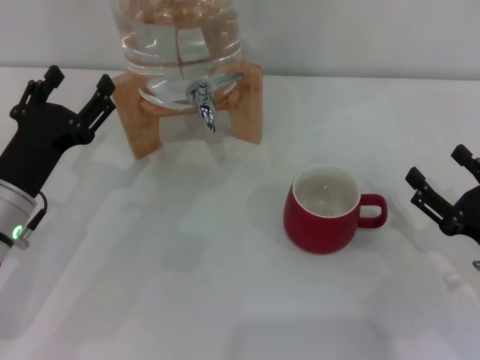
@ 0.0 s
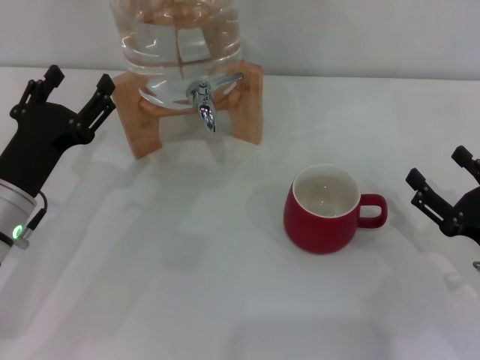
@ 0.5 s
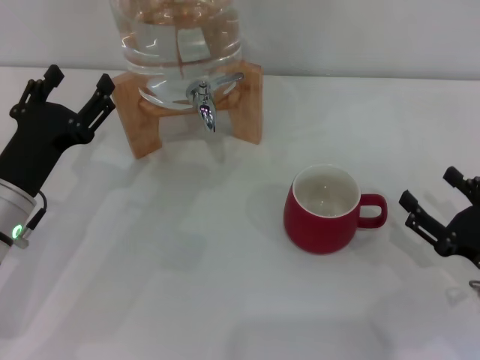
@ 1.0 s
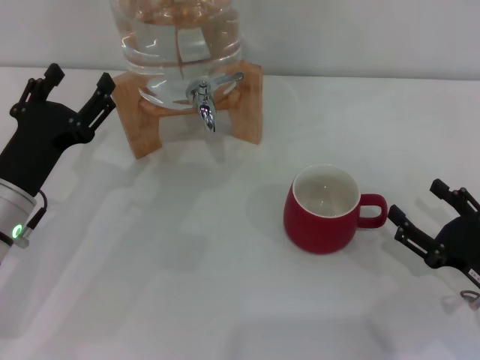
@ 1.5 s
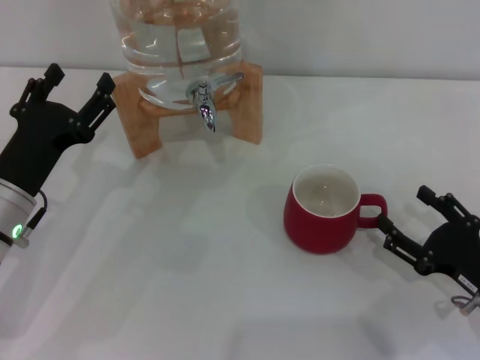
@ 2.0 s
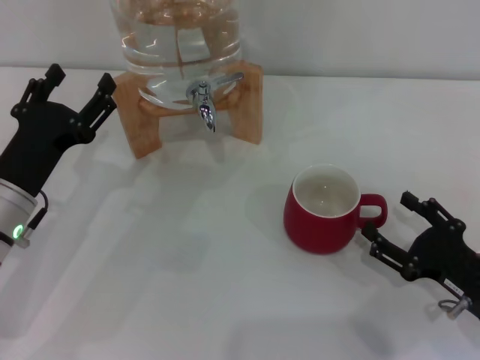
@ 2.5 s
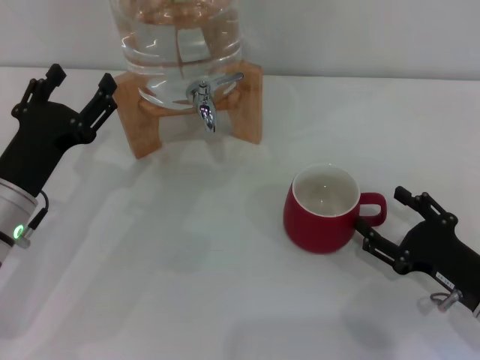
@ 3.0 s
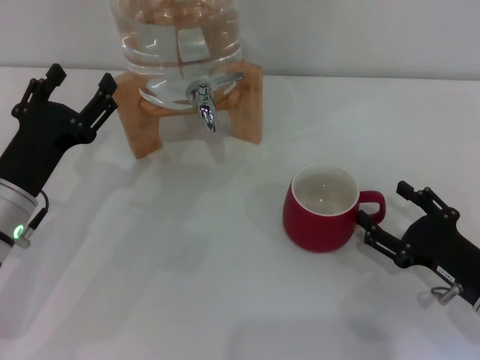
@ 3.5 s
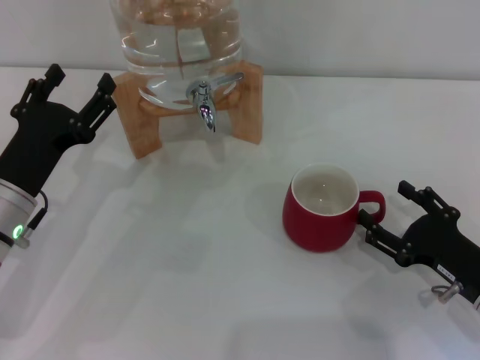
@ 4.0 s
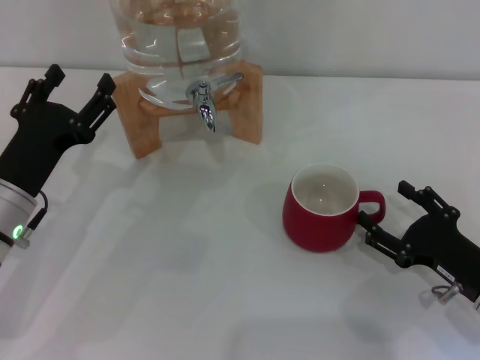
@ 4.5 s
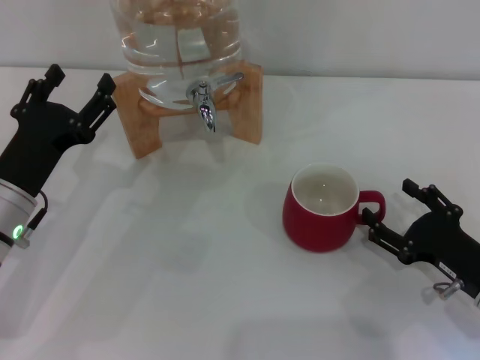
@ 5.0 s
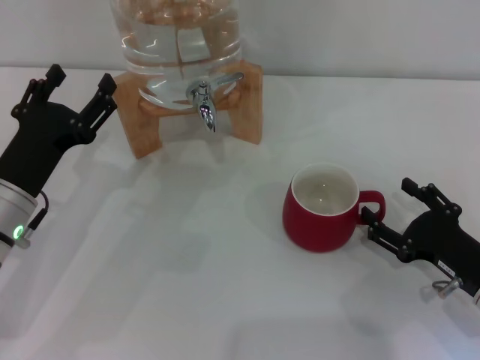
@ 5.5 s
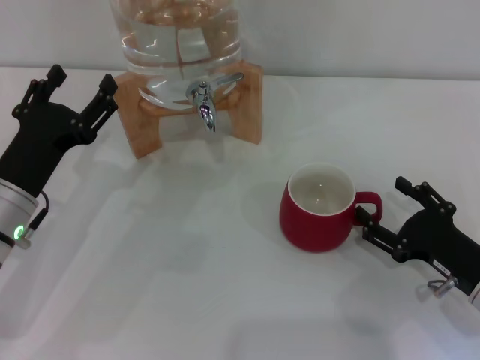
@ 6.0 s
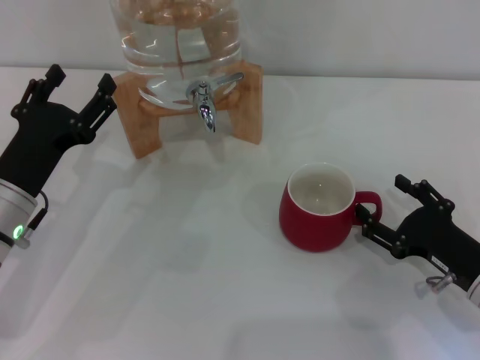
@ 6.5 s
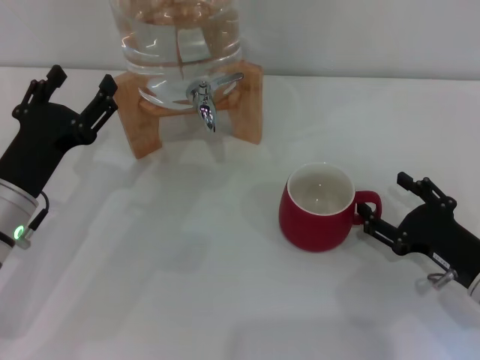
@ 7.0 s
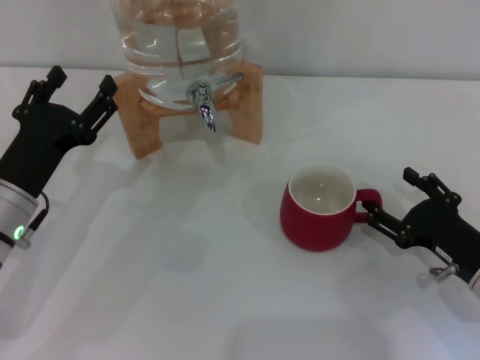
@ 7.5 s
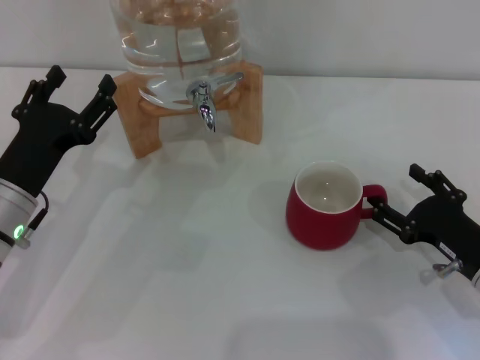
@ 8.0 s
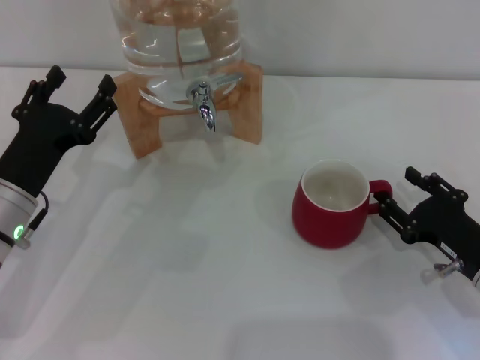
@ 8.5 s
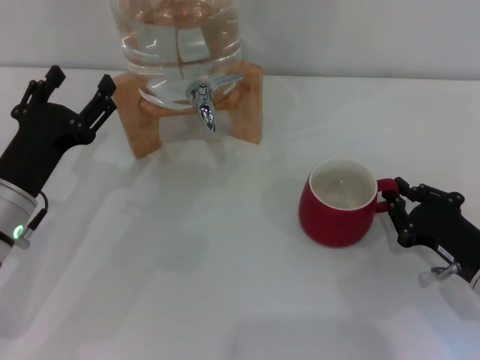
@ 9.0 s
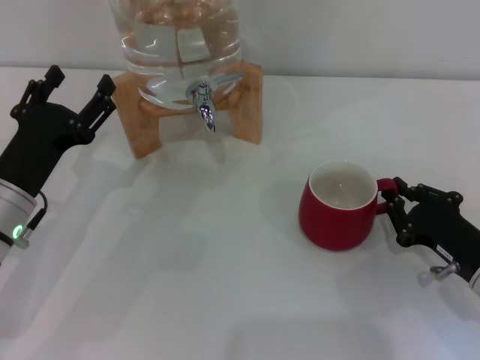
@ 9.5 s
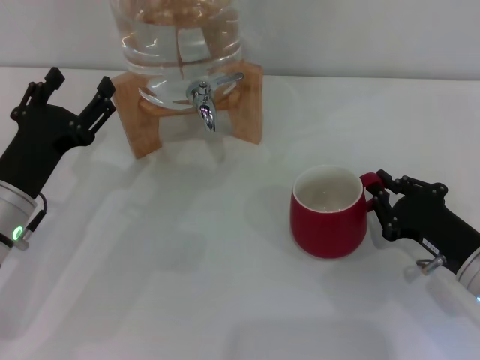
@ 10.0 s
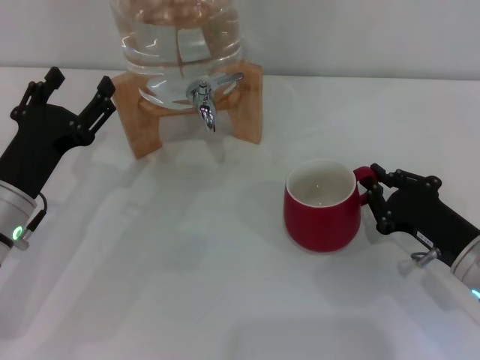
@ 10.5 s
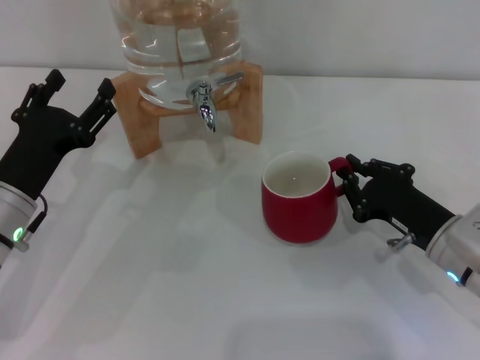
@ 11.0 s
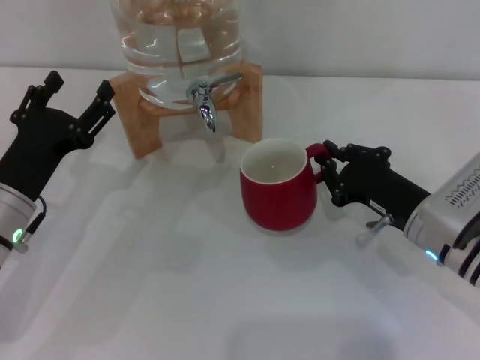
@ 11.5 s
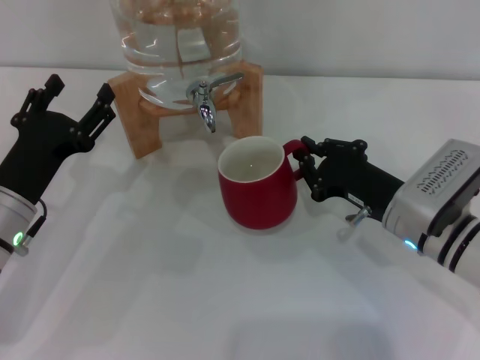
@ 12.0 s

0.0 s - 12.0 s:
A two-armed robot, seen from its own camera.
Task of the whole recording: the right gripper pick up the red cup and place it horizontally under the faucet, the left gripper turn on the faucet to fill the cup, and then turn off the faucet.
0.0 s - 4.0 s: The grippers stay close to where they were, moving slightly.
4.0 s - 6.0 s: Both grippers stay put.
6.0 s - 8.0 s: There are only small adjustments of the grippers.
8.0 s - 10.0 s: The right gripper closes up.
10.0 s - 12.0 s: The right gripper shifts approximately 10 cm to the left and forward.

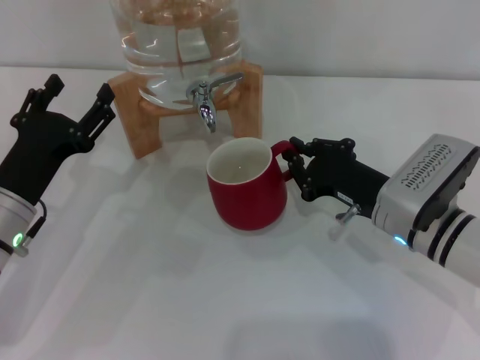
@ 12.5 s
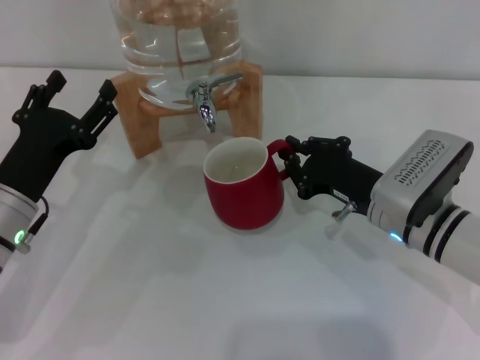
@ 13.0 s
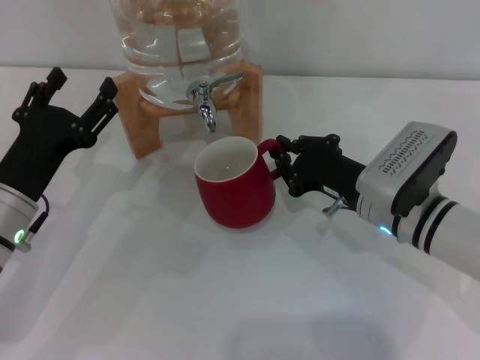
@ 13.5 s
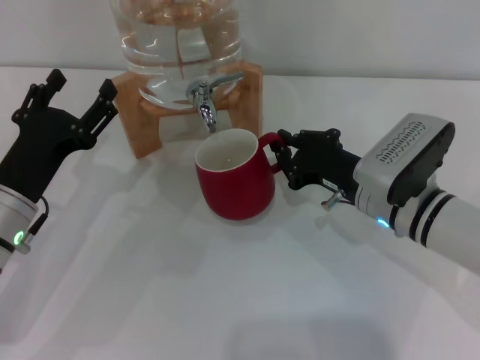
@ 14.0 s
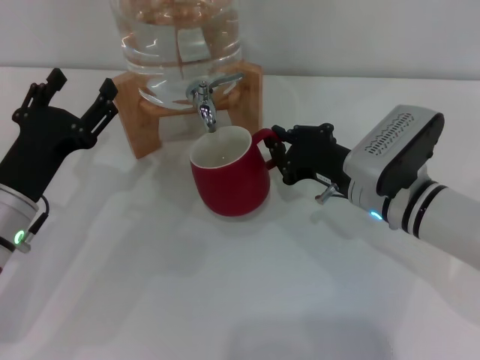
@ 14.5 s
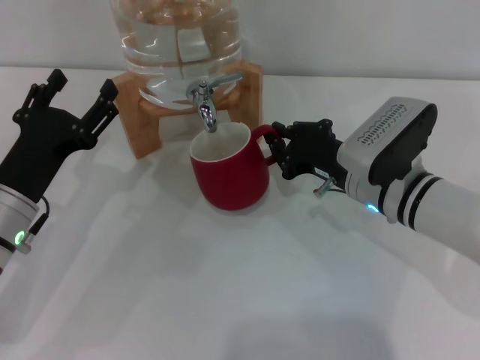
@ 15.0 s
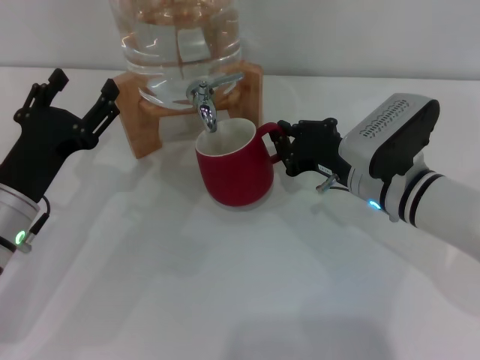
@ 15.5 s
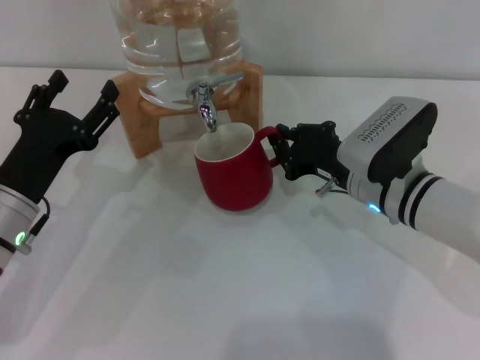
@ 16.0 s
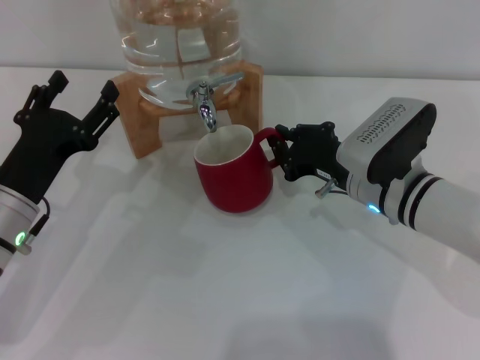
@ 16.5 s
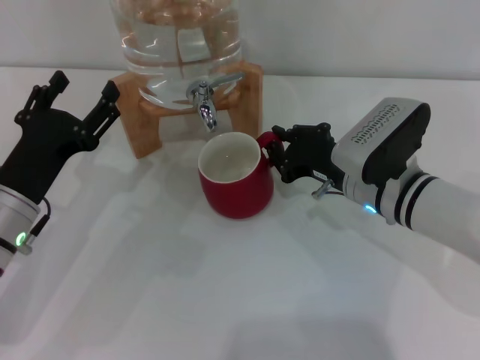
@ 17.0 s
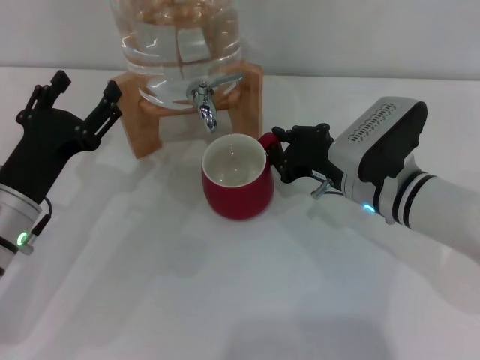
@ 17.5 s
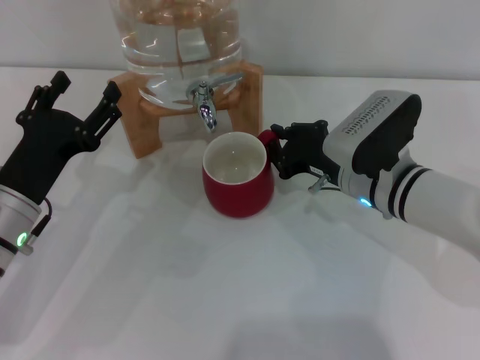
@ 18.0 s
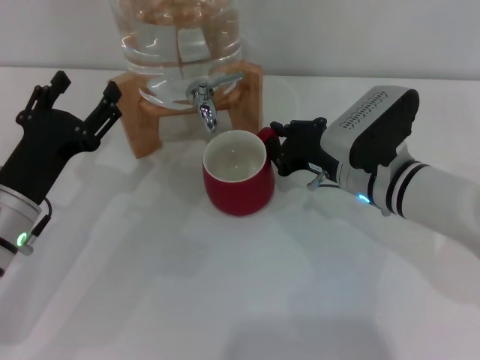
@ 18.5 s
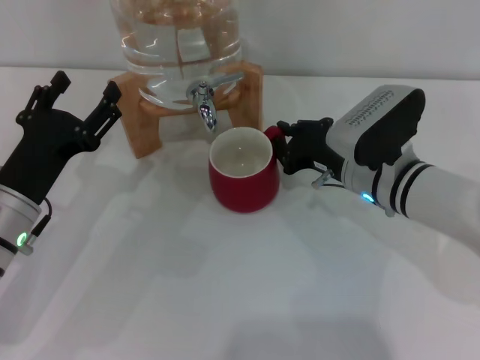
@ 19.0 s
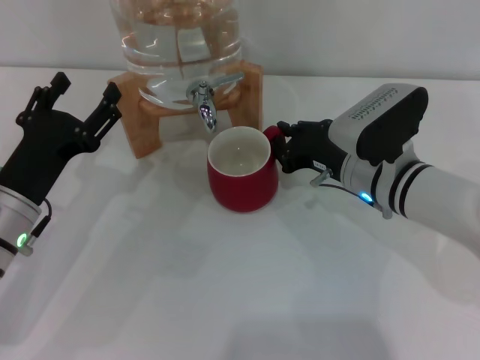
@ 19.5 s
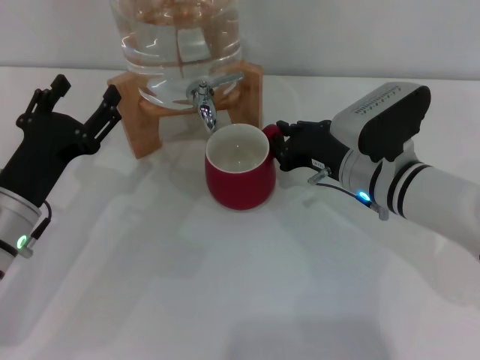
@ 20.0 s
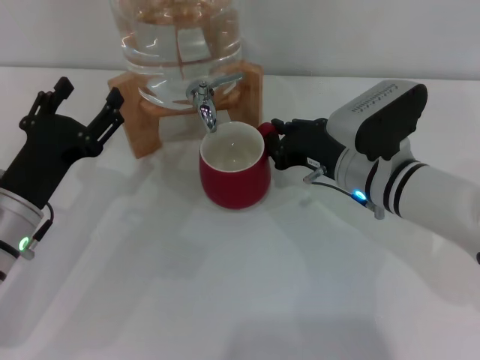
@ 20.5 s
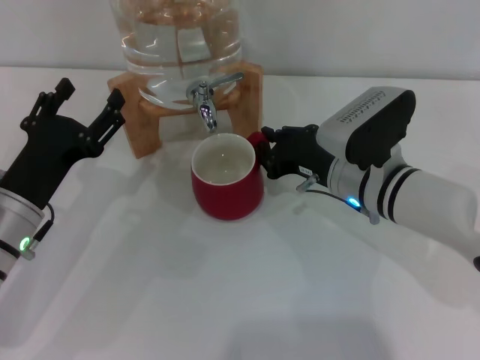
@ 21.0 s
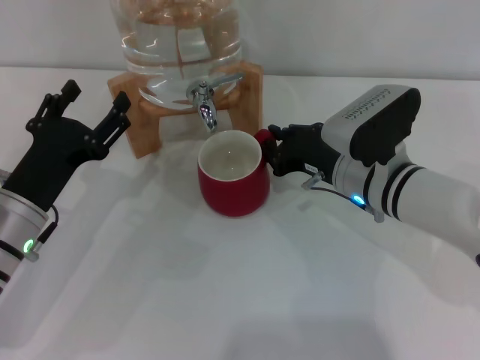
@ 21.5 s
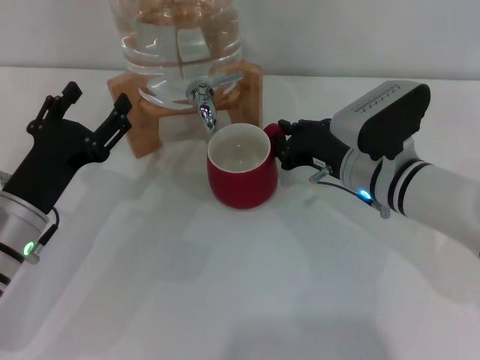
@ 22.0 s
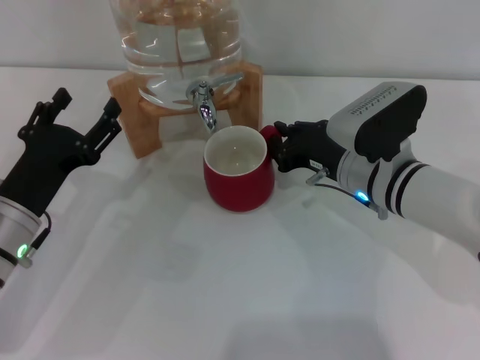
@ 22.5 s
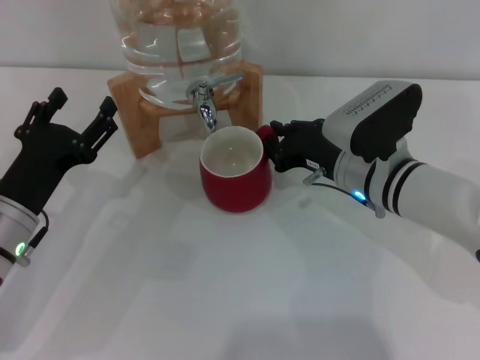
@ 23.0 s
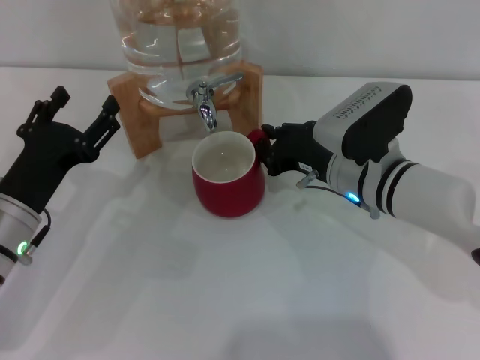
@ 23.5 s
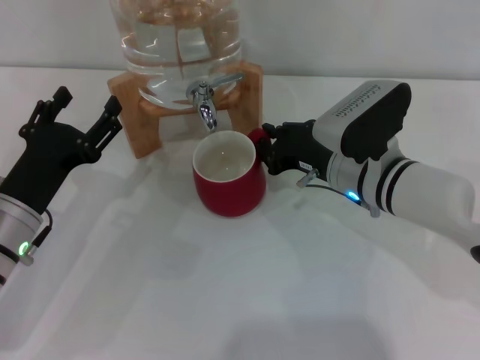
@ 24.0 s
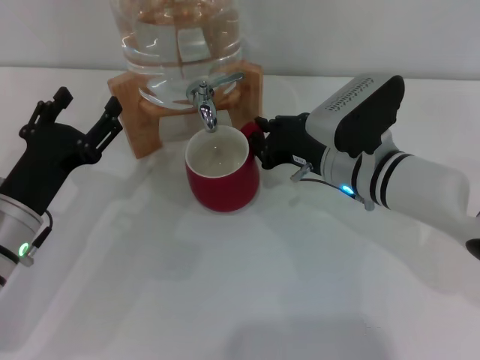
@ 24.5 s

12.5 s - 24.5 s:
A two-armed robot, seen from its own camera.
Task of the whole recording: the right gripper pick up the red cup and place it horizontally under the faucet, the left gripper turn on the faucet to fill the cup, and then turn off the faucet.
12.5 s - 14.5 s: The grippers make only small movements.
14.5 s - 16.5 s: Both grippers stay put.
16.5 s - 20.5 s: The grippers make only small movements.
20.5 s - 22.5 s: The two grippers keep their place.
22.5 s - 24.5 s: The grippers move only a little.

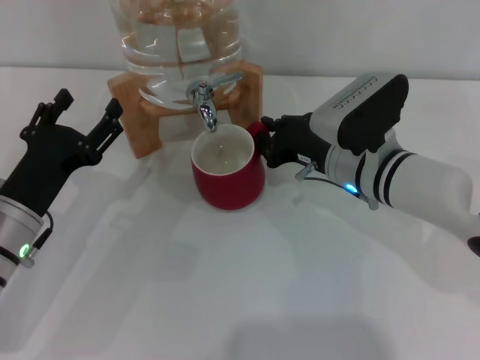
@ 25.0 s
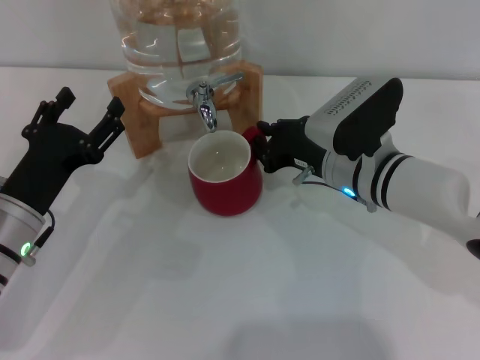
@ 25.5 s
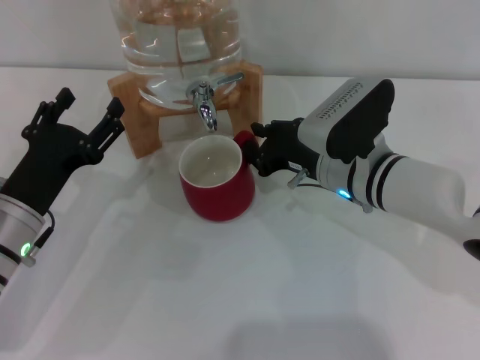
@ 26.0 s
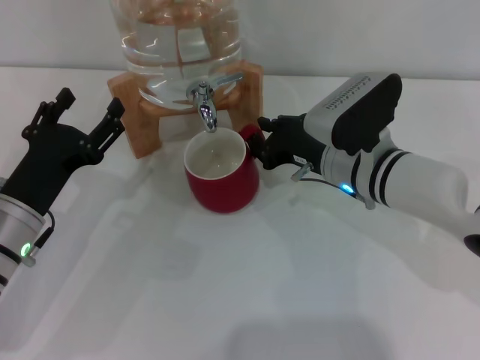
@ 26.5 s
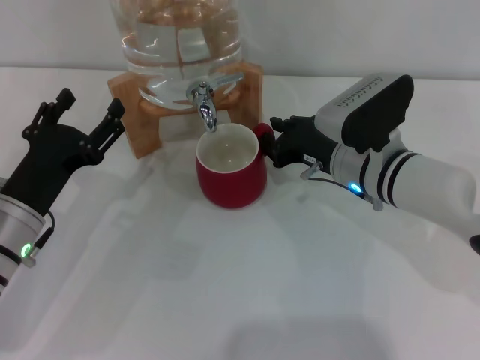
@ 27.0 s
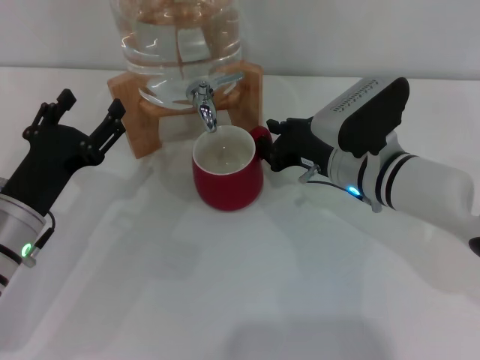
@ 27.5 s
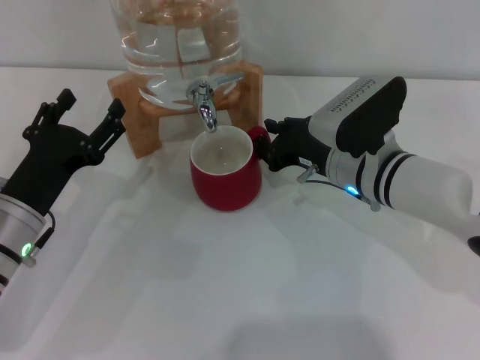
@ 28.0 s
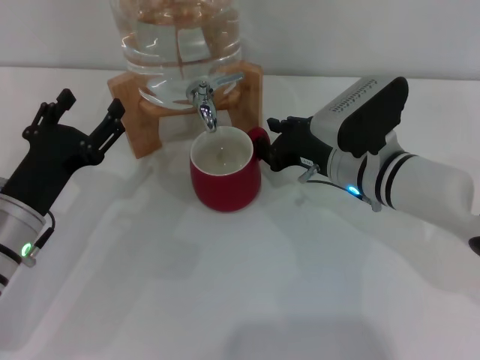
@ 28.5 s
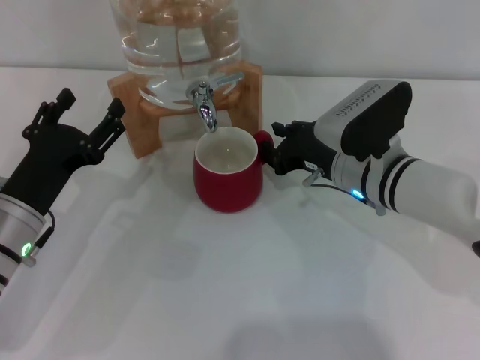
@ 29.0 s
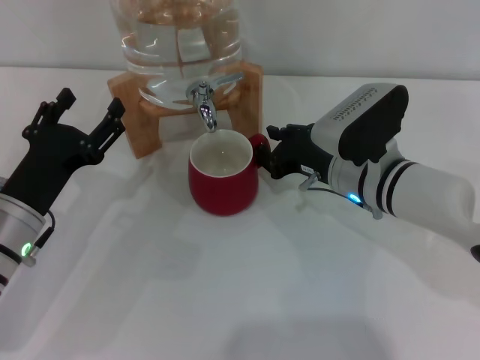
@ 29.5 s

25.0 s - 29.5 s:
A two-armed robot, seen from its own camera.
Task of the whole recording: the right gripper pick up the red cup and place it horizontally under the faucet, the left gripper turn on the faucet to fill the cup, and then turn off the faucet.
25.0 s - 29.5 s: Both grippers stay about where they are.
